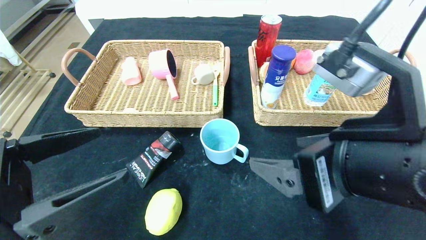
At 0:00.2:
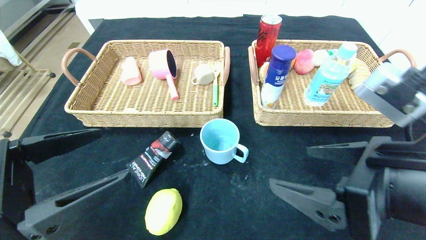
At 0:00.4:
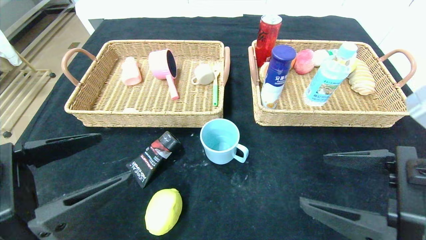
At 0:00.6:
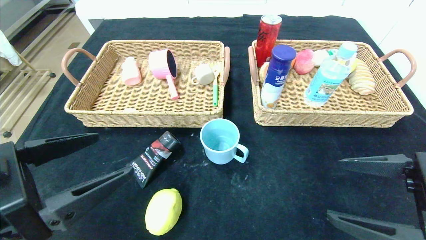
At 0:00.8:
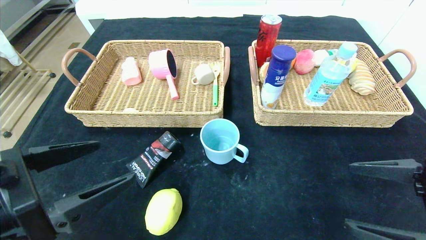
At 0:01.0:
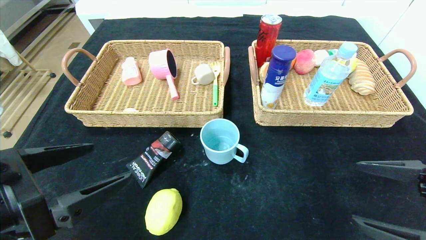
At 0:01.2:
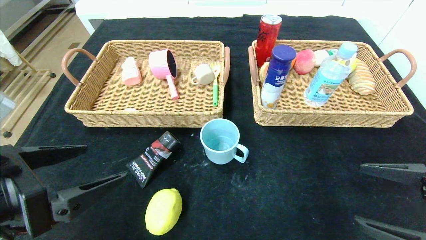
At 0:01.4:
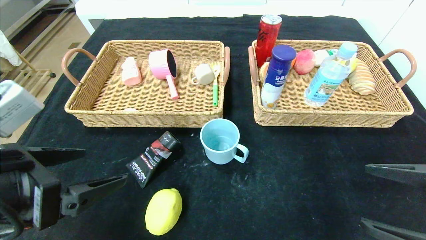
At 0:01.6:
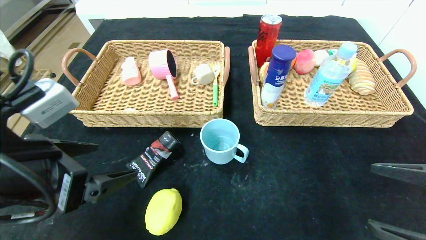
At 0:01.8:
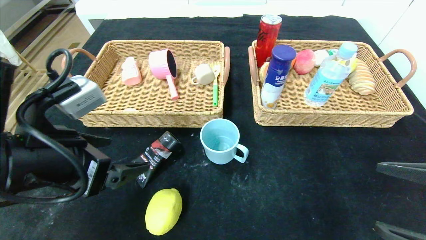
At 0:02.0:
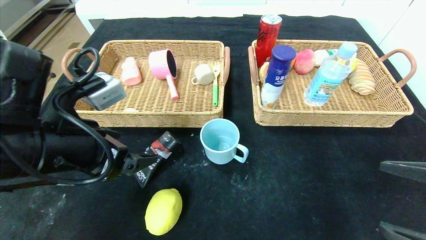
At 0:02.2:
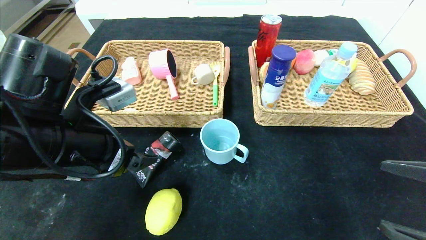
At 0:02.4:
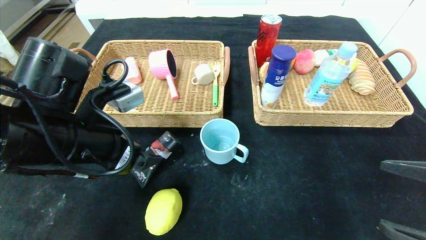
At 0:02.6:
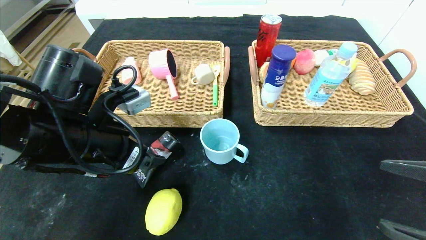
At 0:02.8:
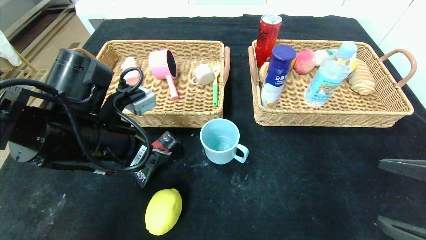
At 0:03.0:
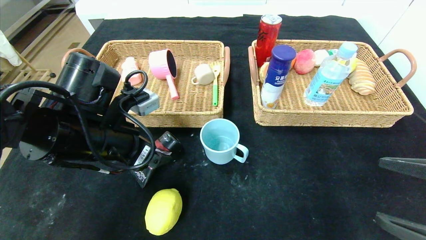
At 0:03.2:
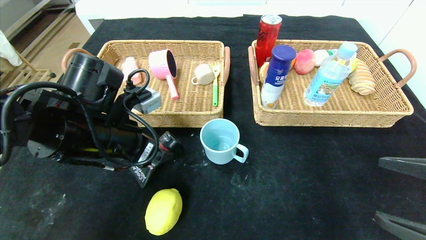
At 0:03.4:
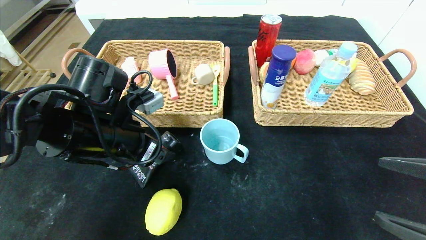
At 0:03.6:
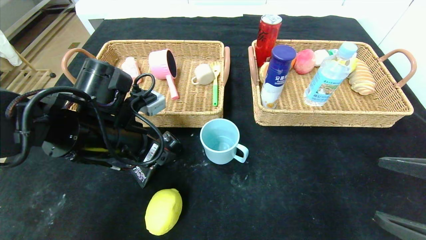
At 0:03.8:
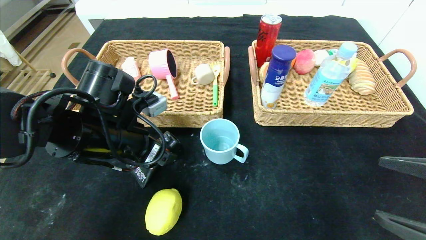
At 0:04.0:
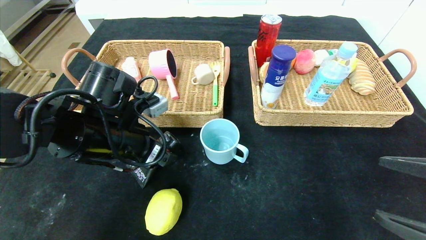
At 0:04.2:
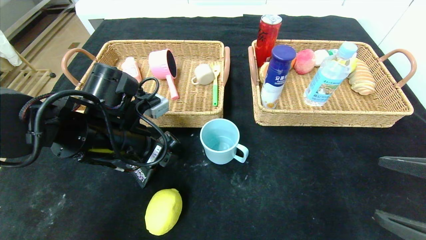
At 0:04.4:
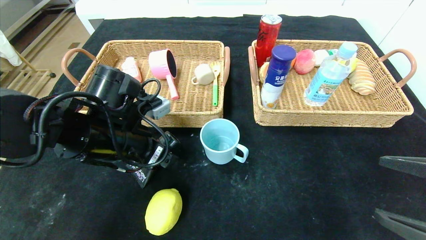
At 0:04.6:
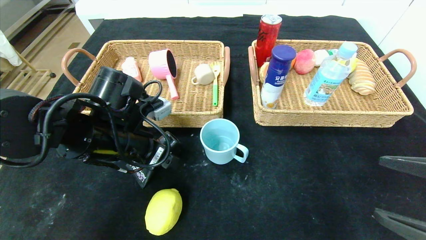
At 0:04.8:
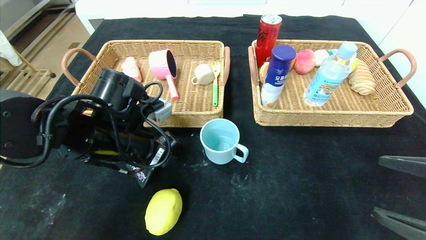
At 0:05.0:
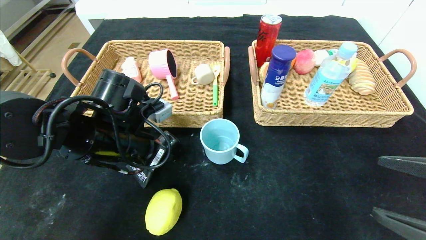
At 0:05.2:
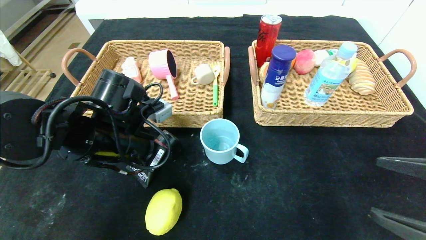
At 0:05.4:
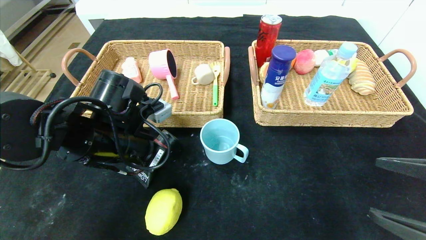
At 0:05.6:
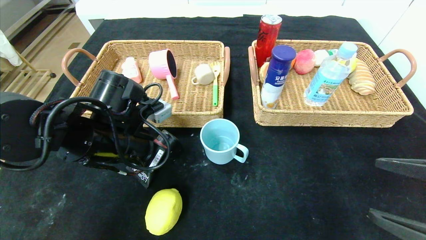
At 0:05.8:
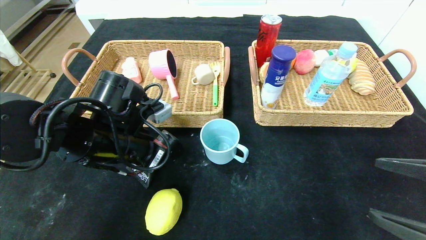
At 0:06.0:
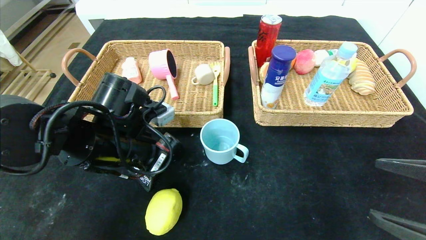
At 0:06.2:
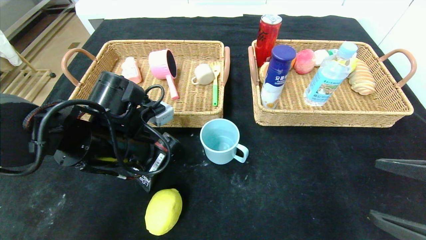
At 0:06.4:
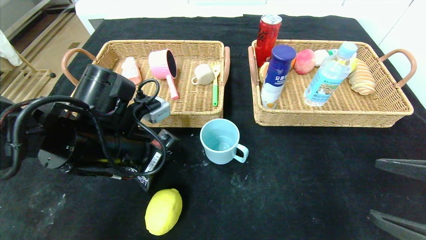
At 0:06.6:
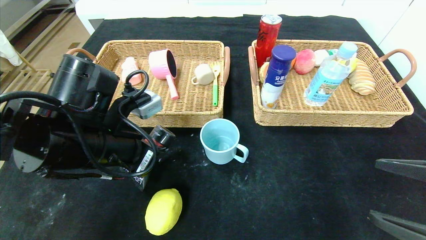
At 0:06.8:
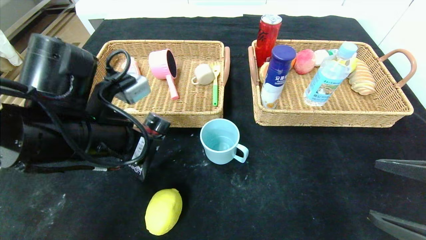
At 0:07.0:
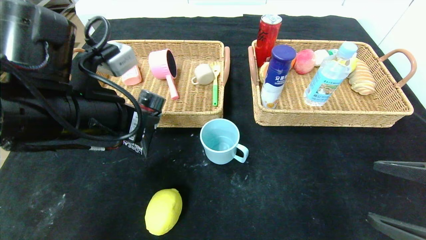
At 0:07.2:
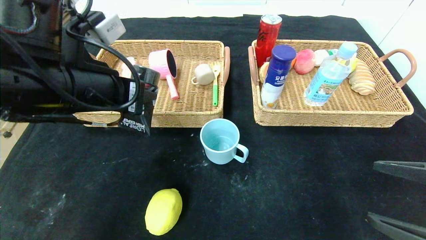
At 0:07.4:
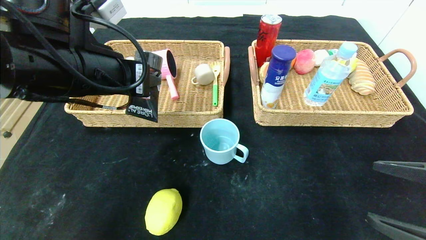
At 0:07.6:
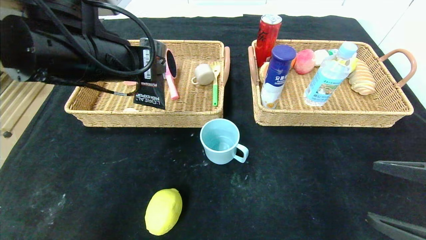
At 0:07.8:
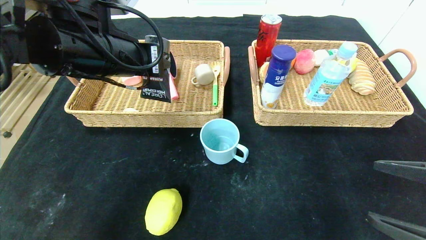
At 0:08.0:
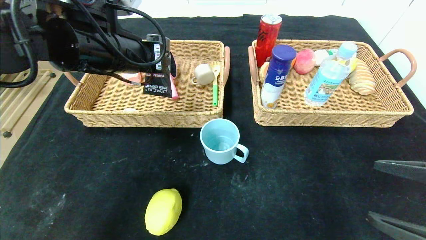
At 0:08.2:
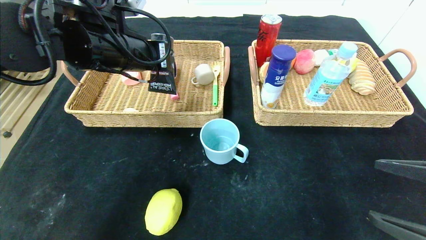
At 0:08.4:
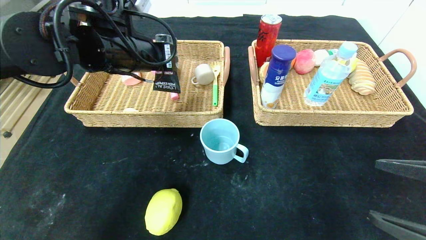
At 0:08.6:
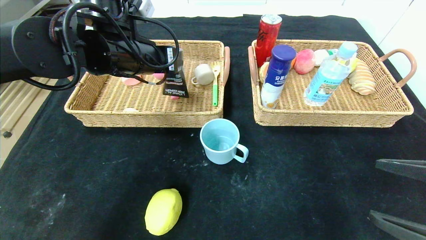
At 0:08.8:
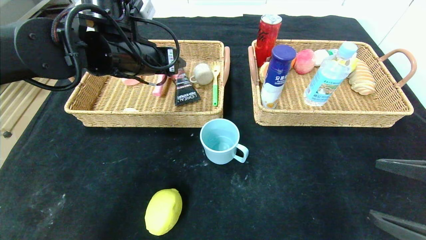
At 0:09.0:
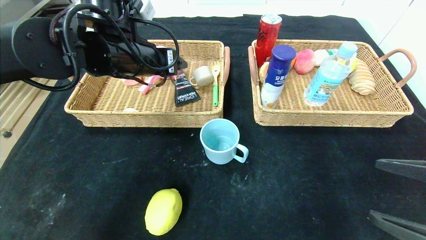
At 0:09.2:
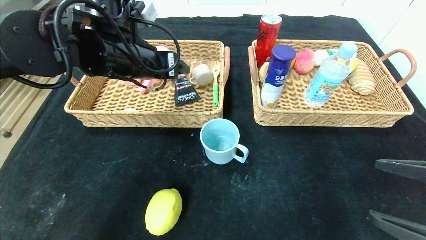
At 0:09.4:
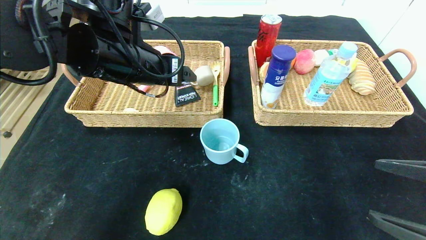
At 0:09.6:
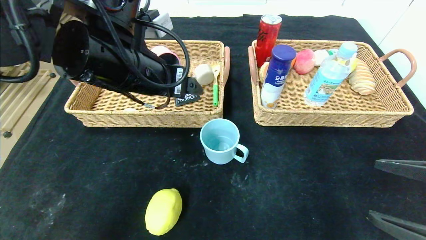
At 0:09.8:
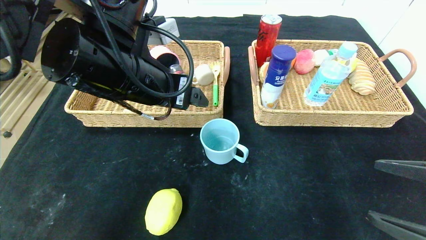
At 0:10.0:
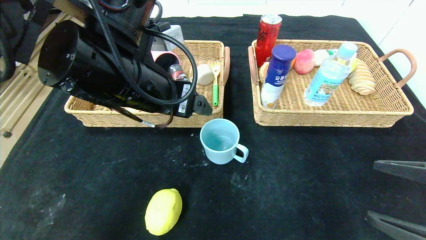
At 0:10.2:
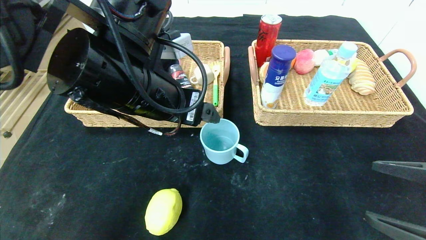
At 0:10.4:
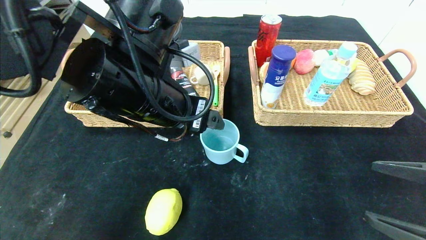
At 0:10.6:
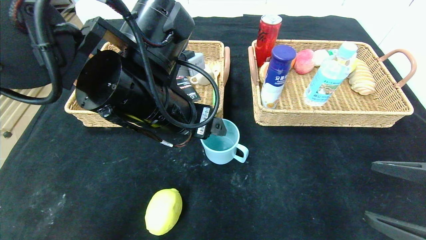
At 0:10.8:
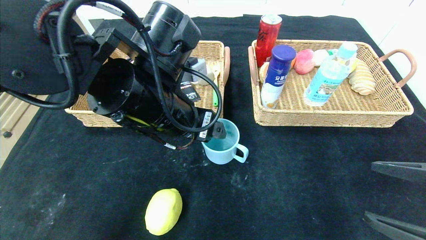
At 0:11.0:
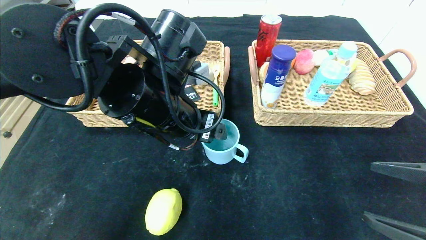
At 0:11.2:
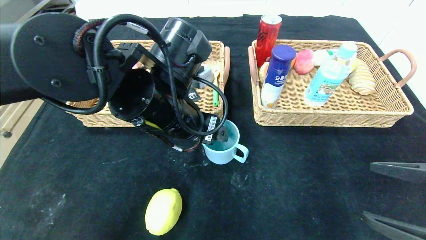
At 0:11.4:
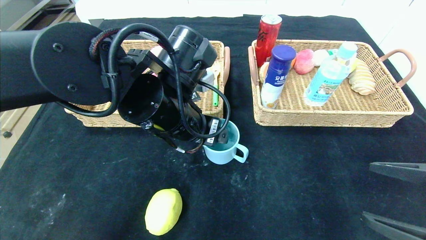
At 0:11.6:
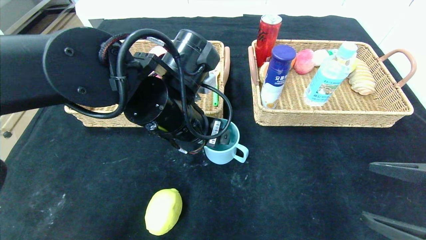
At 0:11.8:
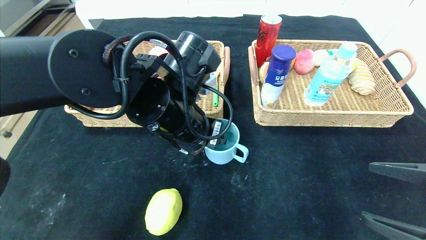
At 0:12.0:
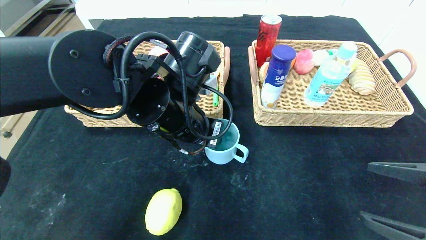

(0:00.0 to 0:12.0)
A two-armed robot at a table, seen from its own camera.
Step, 0:00.2 - 0:10.6: Pick up the soft cleanser and put it in the left basket.
0:00.0 - 0:01.6: The right gripper heads to the right and downward, covering about 15 cm.
0:01.6 - 0:03.0: The left gripper is displaced forward by roughly 10 cm.
0:03.0 - 0:04.4: The grippers make only small movements.
0:04.4 - 0:06.0: The left gripper closes its fingers.
0:06.0 - 0:07.6: The left gripper heads upward, covering roughly 15 cm.
0:07.6 - 0:09.0: The left gripper is displaced forward by some 10 cm, and opens its fingers.
0:09.0 - 0:10.4: The left gripper is displaced backward and to the right by approximately 10 cm.
0:10.4 - 0:12.0: The left gripper shifts by some 5 cm, and closes up.

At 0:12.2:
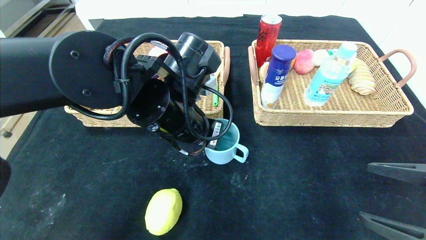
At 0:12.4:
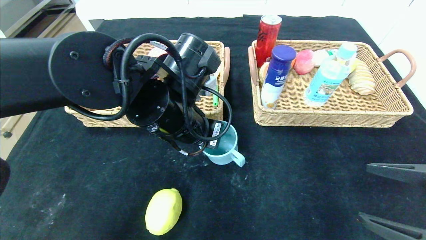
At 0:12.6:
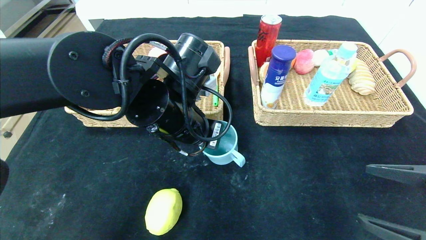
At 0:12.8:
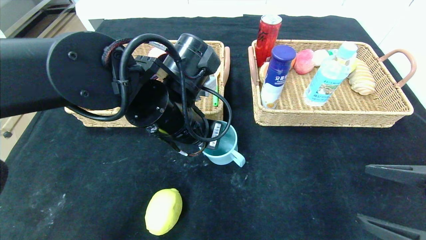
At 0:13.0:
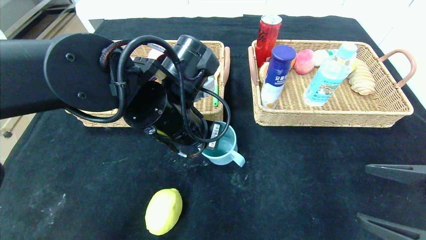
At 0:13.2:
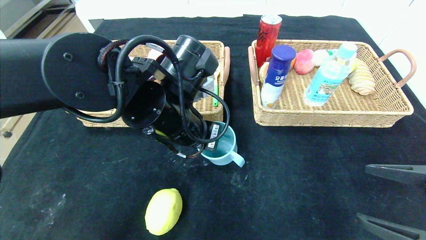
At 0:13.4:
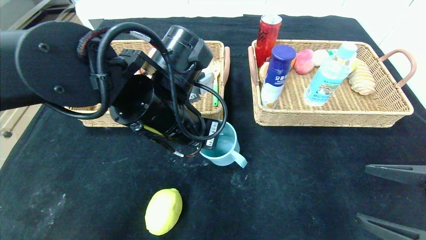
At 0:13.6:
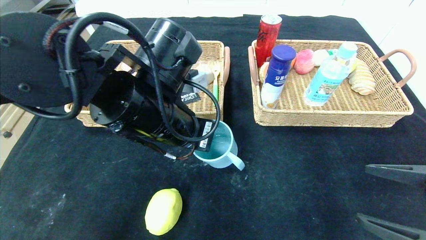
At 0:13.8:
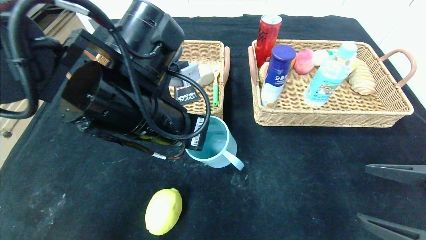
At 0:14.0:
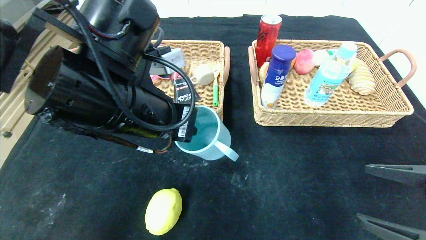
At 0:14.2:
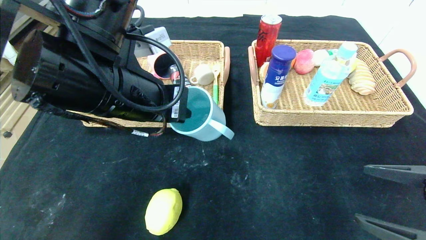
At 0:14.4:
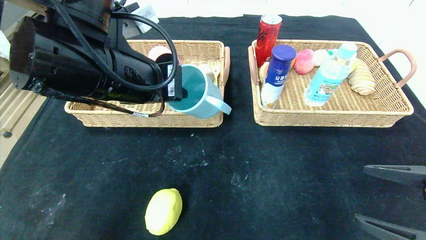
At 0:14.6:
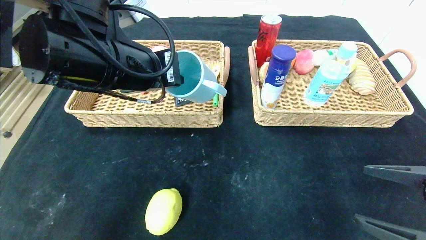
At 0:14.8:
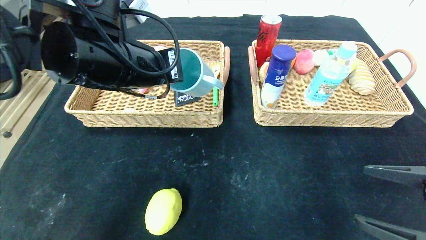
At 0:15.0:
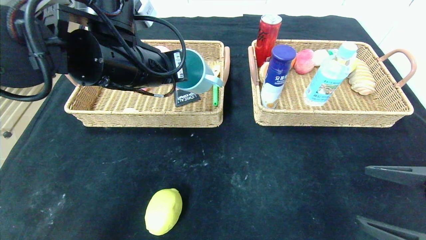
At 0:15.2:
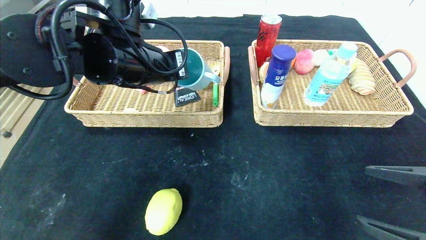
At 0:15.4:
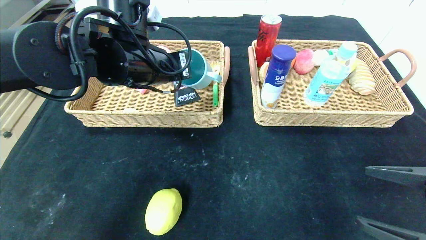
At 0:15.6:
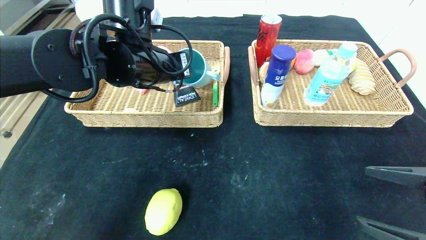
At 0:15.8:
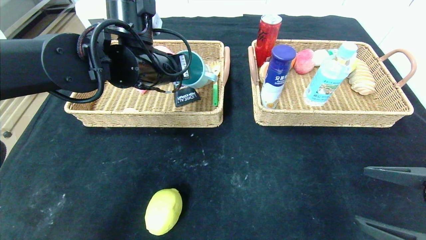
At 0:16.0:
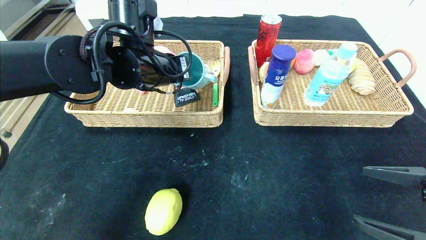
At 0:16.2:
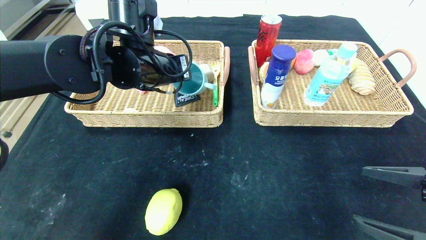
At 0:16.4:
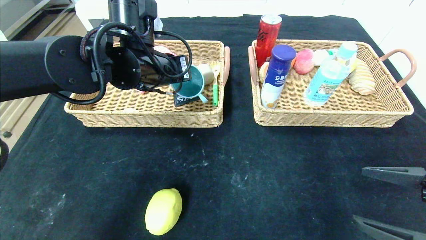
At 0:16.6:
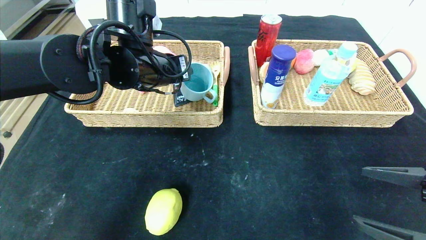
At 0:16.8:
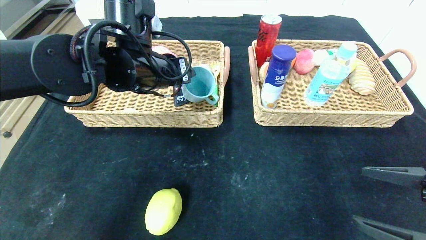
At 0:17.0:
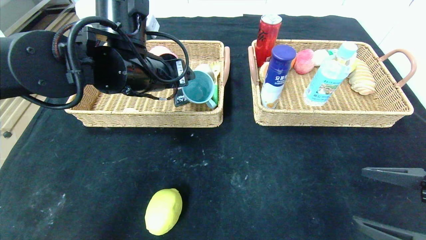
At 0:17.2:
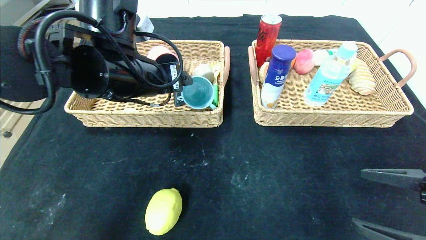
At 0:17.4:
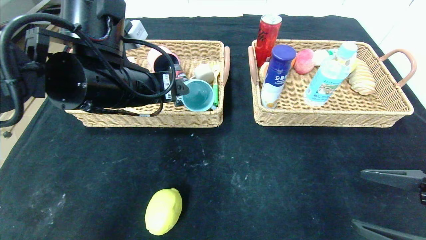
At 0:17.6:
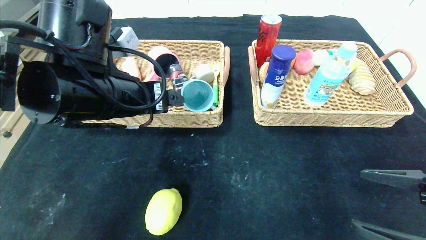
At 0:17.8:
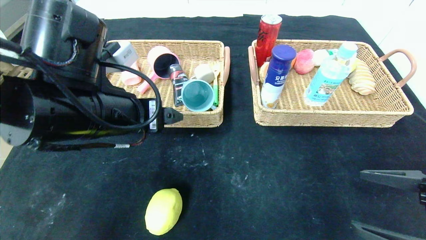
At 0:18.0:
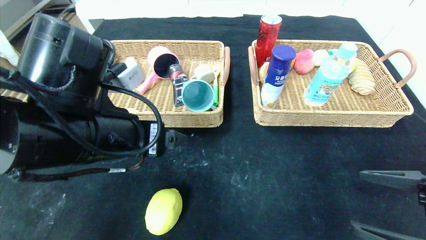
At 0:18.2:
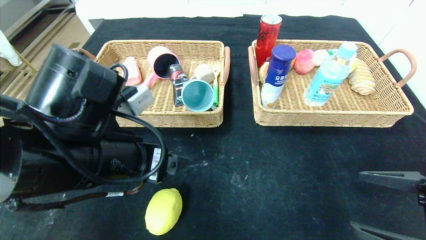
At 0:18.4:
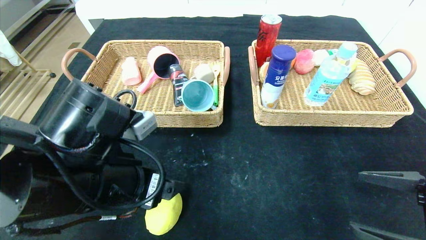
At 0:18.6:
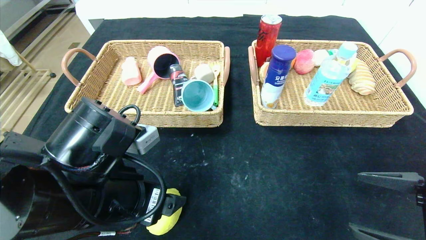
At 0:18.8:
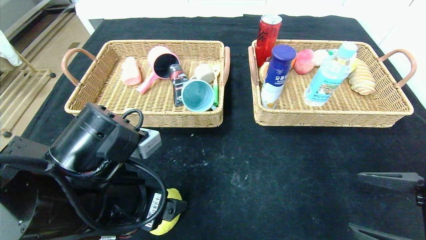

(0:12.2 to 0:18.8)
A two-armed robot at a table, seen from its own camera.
Step, 0:12.2 - 0:18.0: Pick up the blue cup and put it in the left basket.
0:12.2 - 0:13.8: The left gripper moves roughly 5 cm.
0:13.8 - 0:15.4: The left gripper goes about 10 cm forward.
0:15.4 - 0:17.2: The left gripper opens up.
0:17.2 - 0:18.8: The left gripper goes about 15 cm backward and downward.